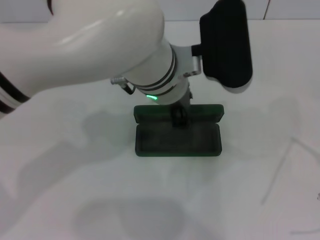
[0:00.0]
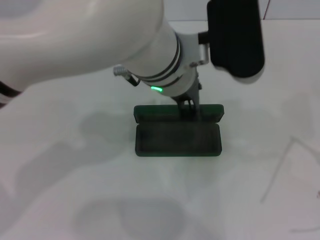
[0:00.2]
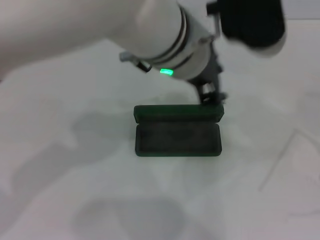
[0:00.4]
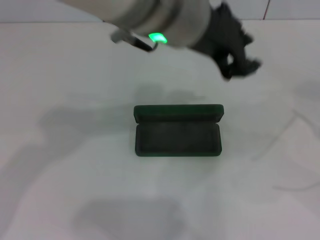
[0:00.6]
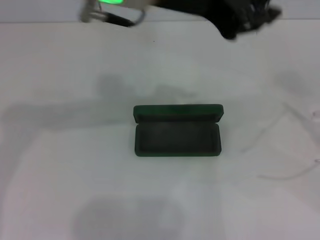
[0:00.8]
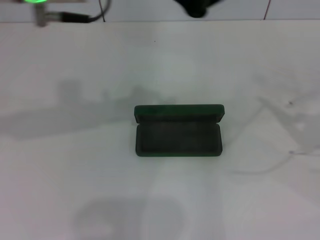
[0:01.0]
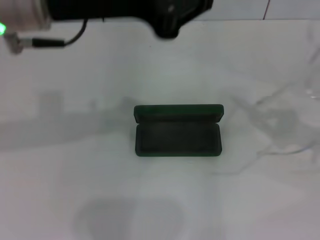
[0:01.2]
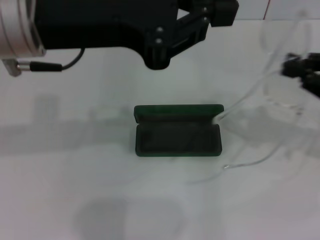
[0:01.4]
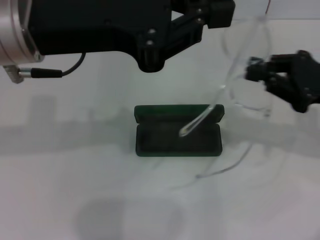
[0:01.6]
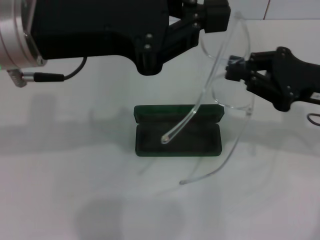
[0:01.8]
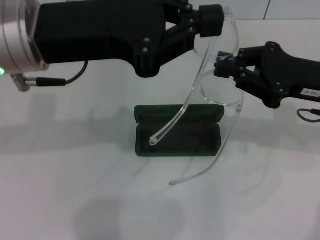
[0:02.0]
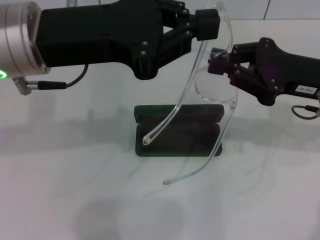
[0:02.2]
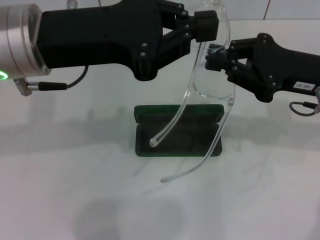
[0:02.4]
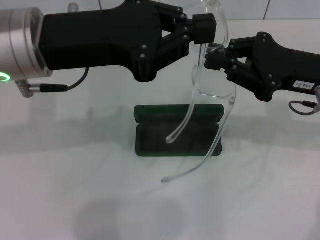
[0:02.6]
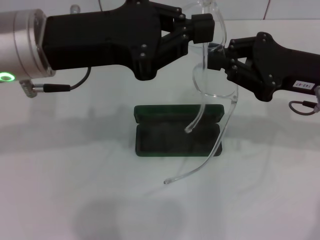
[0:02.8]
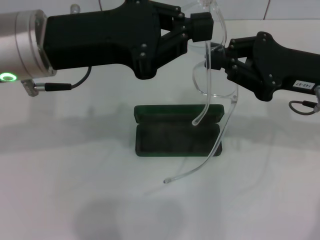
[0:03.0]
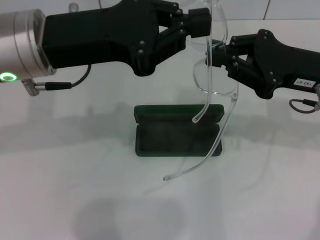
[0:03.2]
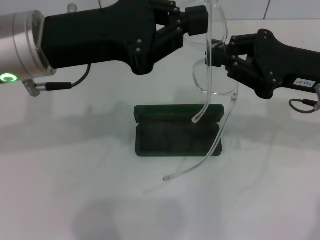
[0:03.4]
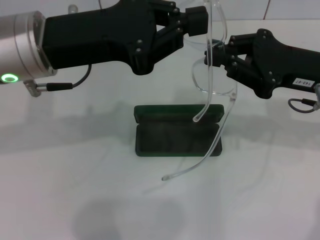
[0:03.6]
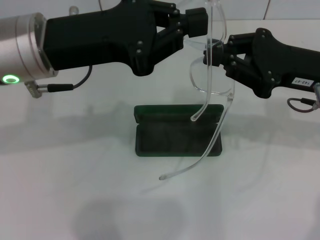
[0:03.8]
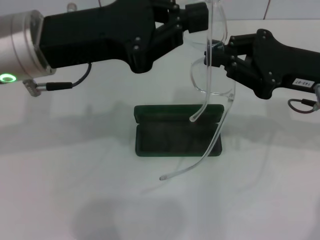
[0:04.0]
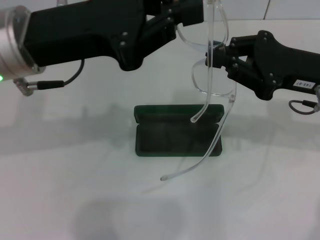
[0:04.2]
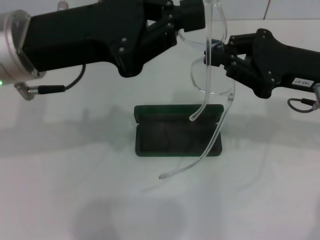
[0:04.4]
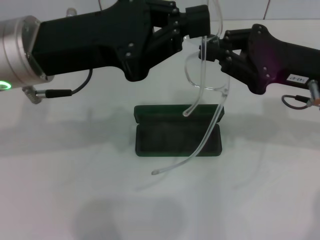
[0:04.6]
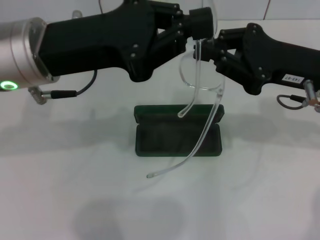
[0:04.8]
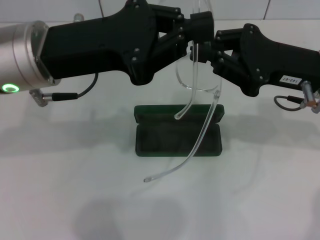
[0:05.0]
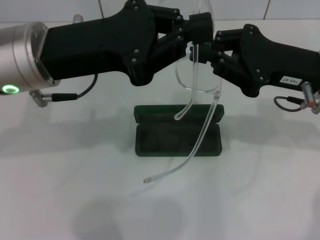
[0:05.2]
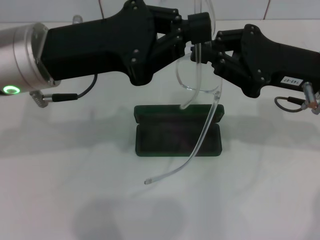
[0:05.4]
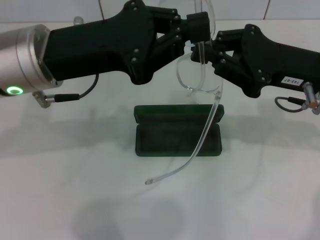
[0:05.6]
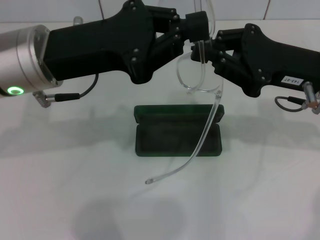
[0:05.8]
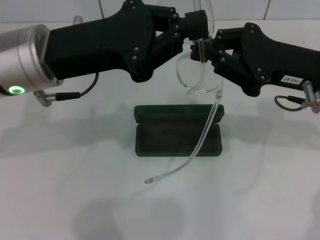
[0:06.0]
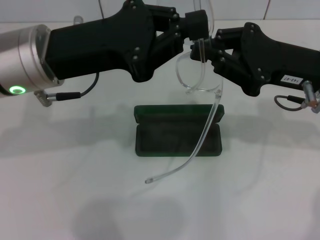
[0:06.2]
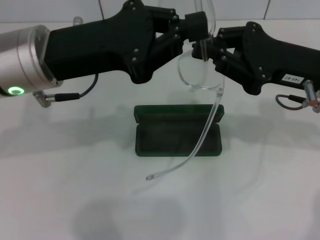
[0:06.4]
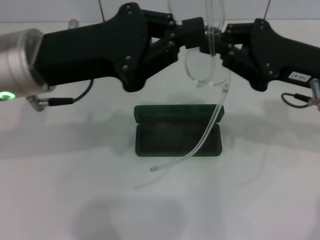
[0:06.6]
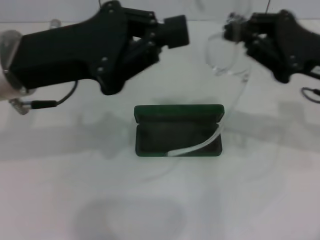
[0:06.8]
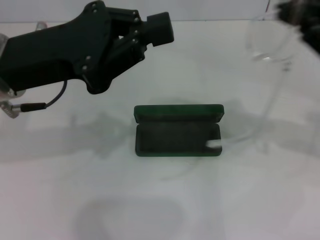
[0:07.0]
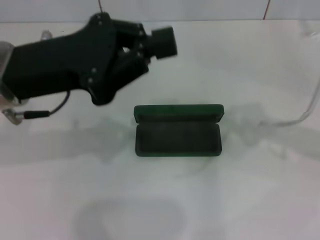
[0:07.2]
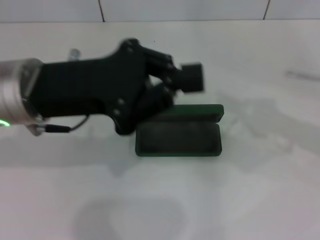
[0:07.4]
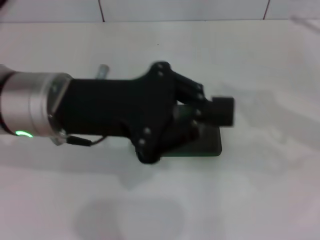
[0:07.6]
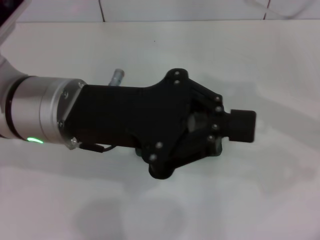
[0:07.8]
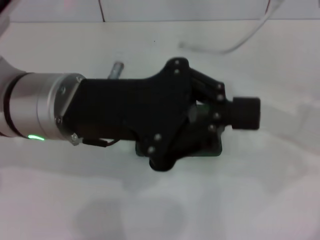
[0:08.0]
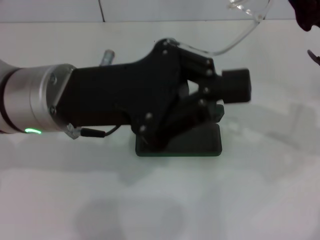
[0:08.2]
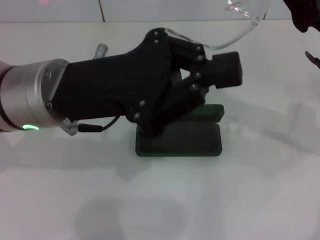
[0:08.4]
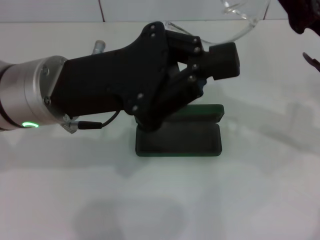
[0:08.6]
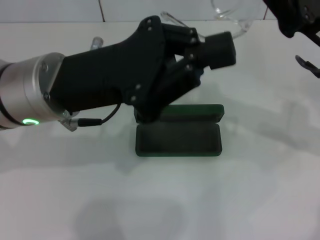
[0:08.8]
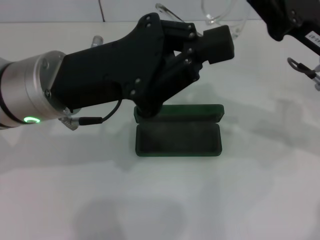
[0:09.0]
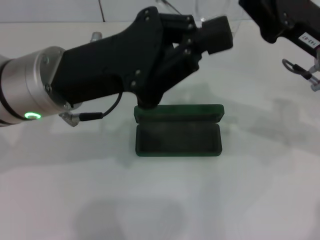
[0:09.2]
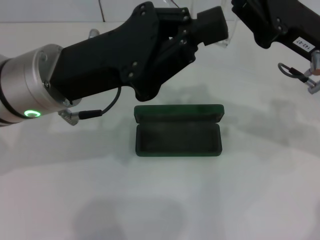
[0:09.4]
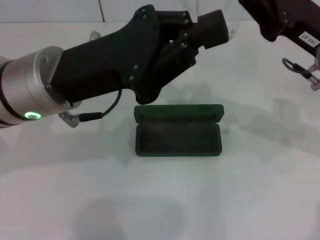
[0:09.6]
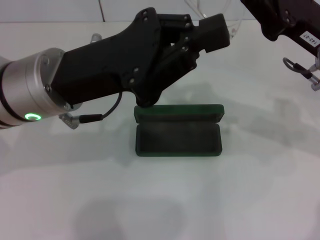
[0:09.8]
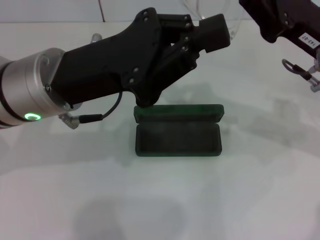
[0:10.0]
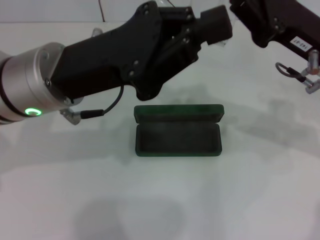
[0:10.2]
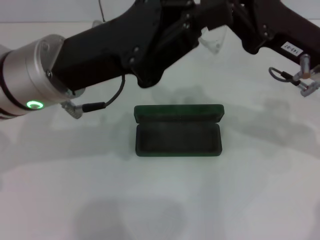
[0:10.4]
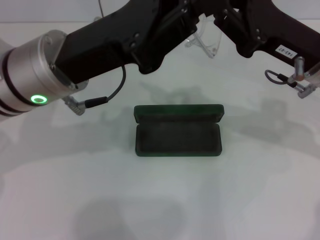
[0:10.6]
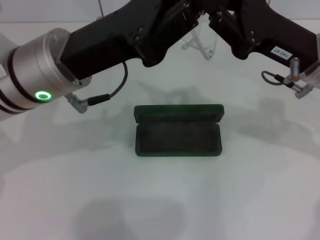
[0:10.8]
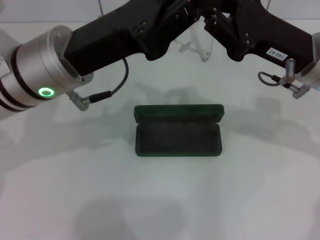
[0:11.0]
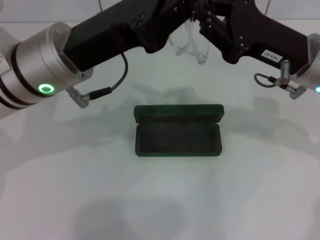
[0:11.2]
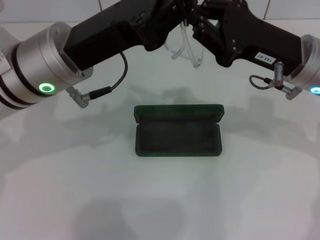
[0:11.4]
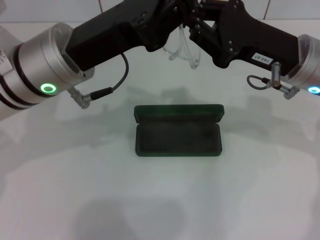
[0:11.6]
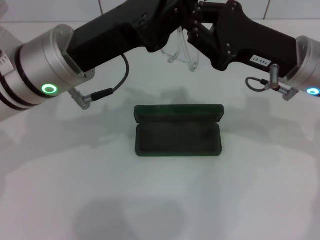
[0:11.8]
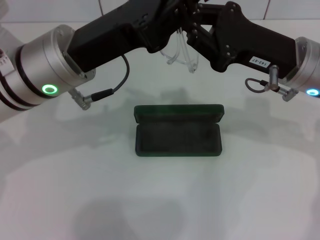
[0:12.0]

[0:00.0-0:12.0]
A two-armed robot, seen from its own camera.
0:00.0 to 0:01.6: The right gripper heads to the left and forward, covering roughly 20 cm. The left gripper travels to the left and upward by about 15 cm, and closes up.
0:01.6 to 0:03.0: The right gripper changes place by some 5 cm.
0:03.0 to 0:06.0: The grippers move only a little.
0:06.0 to 0:07.6: The right gripper shifts approximately 10 cm to the right.
0:07.6 to 0:09.0: The right gripper shifts approximately 10 cm to the left.

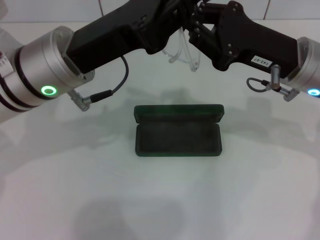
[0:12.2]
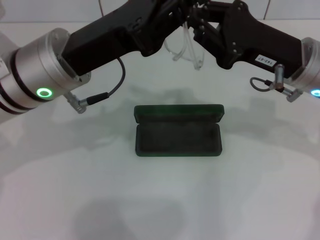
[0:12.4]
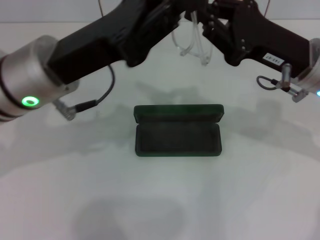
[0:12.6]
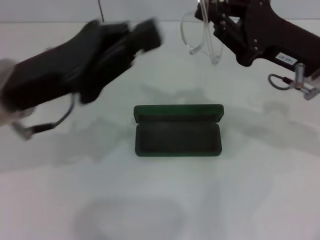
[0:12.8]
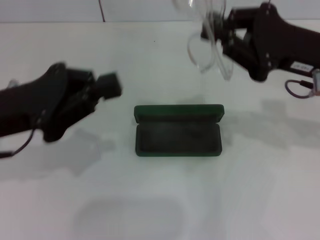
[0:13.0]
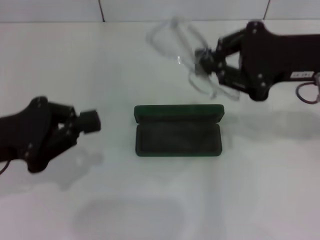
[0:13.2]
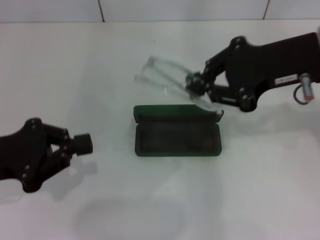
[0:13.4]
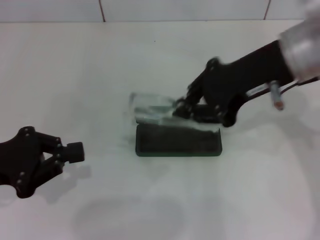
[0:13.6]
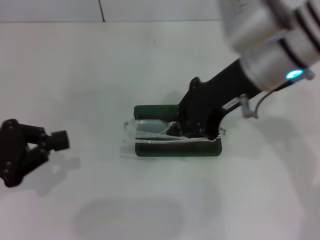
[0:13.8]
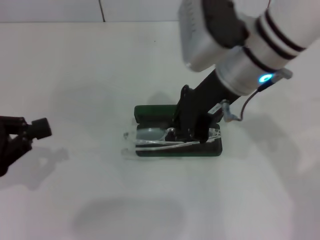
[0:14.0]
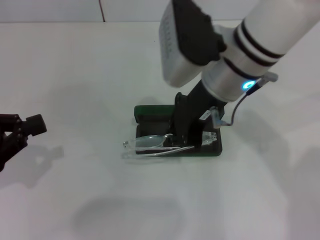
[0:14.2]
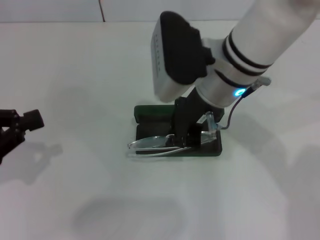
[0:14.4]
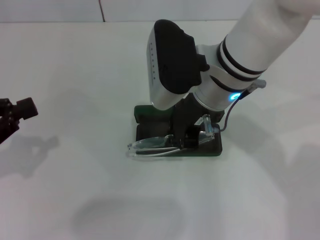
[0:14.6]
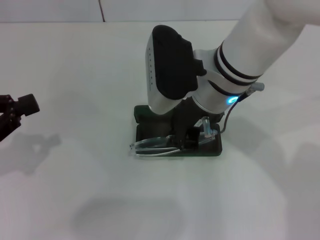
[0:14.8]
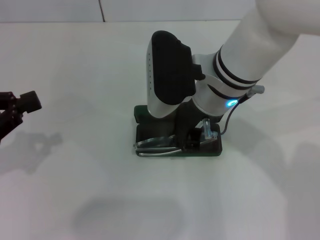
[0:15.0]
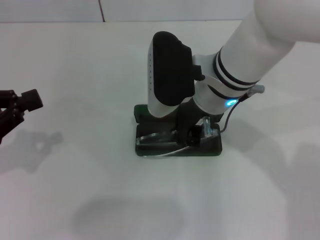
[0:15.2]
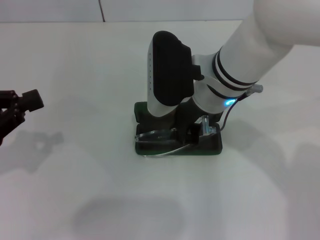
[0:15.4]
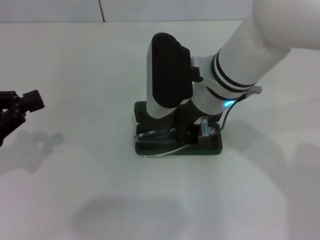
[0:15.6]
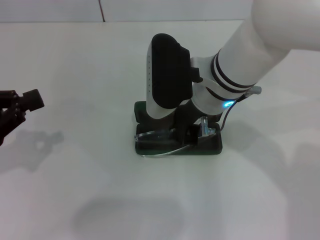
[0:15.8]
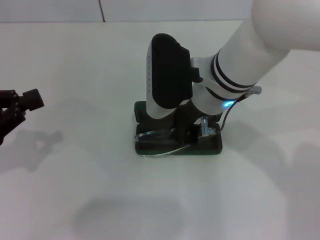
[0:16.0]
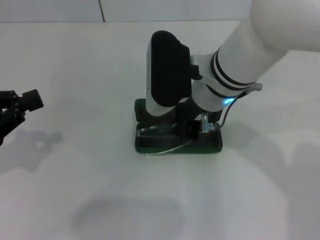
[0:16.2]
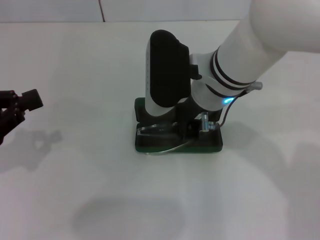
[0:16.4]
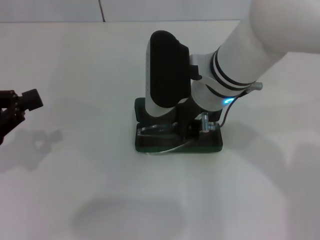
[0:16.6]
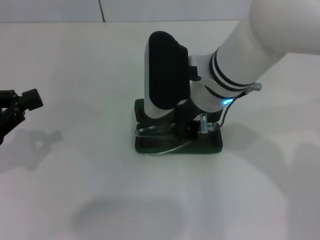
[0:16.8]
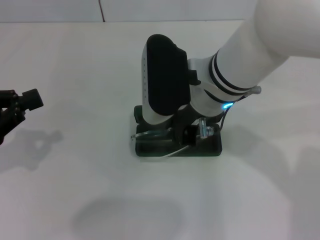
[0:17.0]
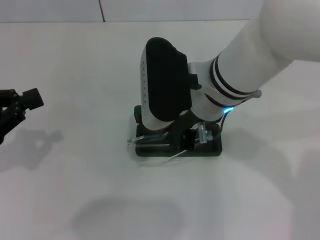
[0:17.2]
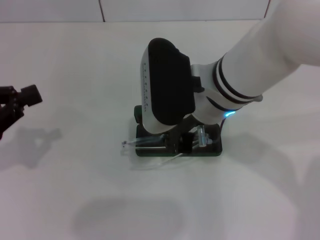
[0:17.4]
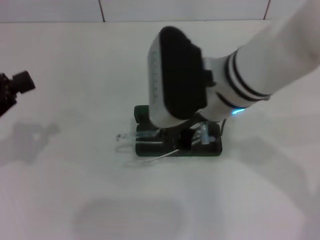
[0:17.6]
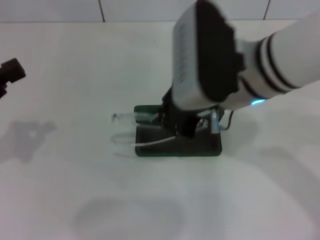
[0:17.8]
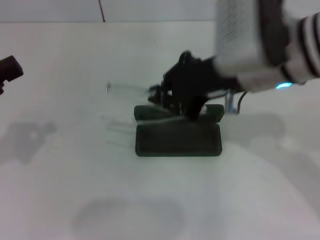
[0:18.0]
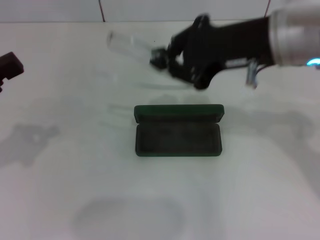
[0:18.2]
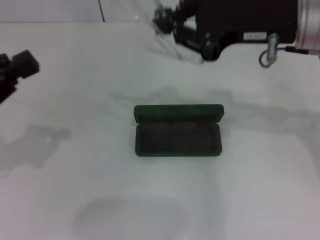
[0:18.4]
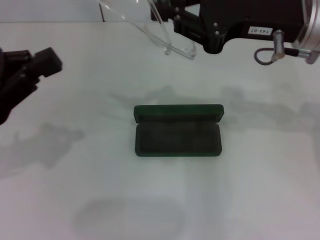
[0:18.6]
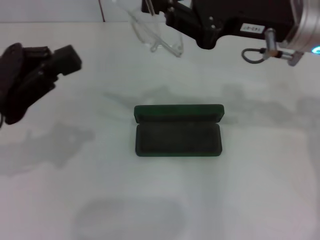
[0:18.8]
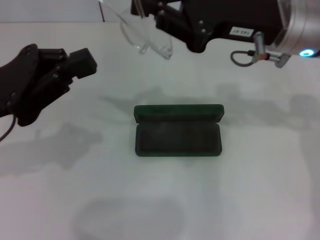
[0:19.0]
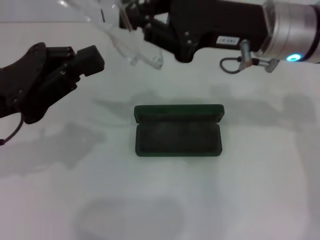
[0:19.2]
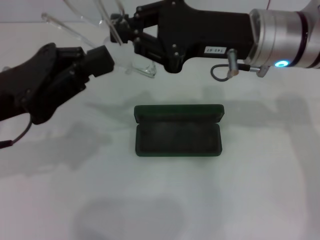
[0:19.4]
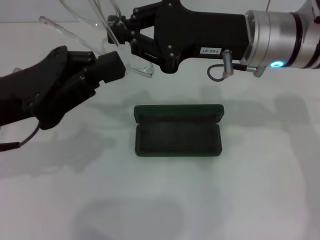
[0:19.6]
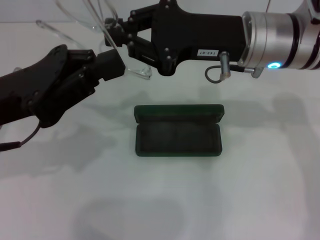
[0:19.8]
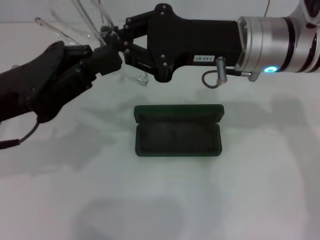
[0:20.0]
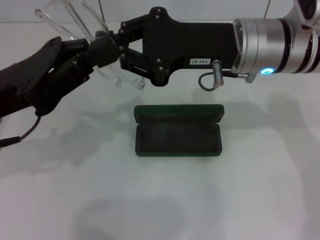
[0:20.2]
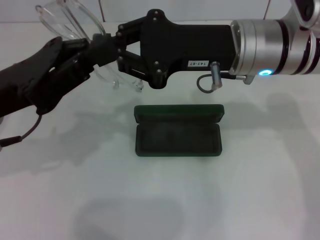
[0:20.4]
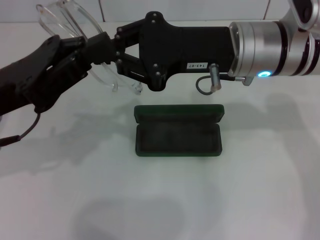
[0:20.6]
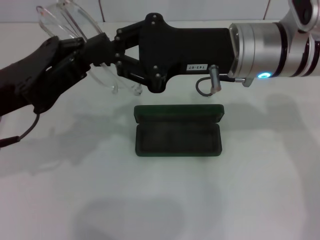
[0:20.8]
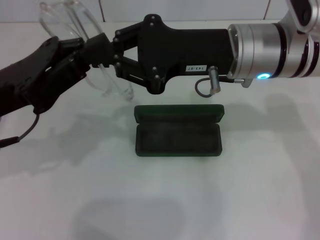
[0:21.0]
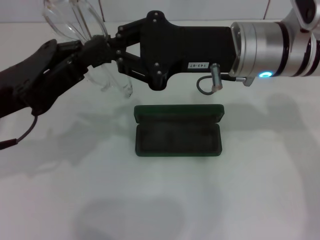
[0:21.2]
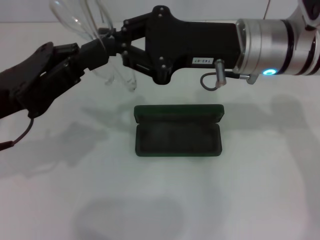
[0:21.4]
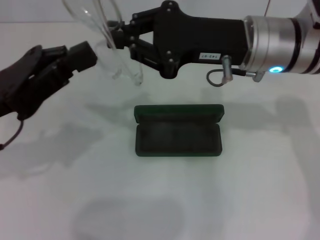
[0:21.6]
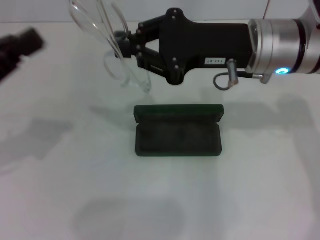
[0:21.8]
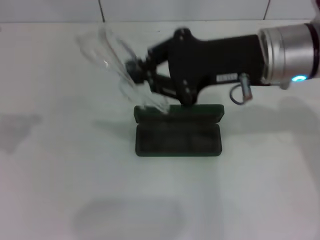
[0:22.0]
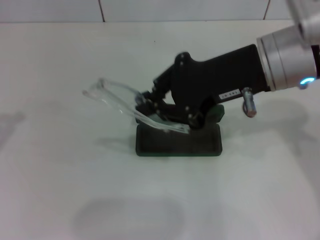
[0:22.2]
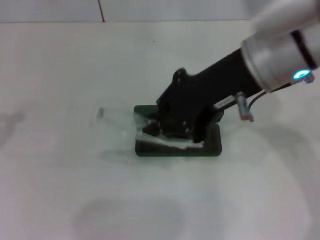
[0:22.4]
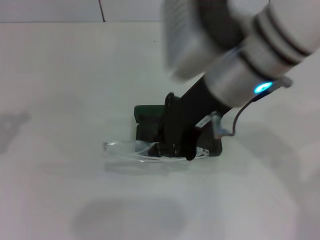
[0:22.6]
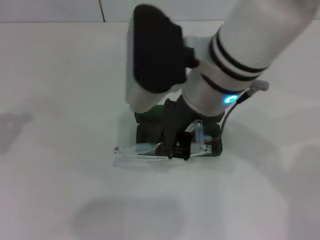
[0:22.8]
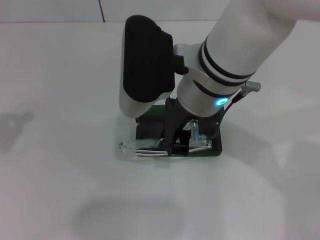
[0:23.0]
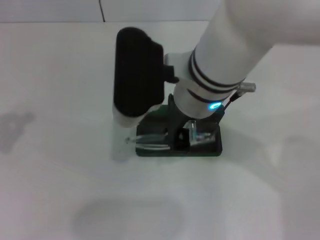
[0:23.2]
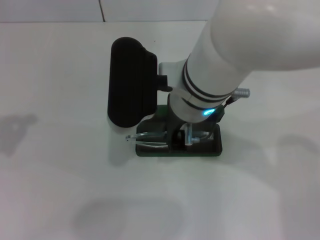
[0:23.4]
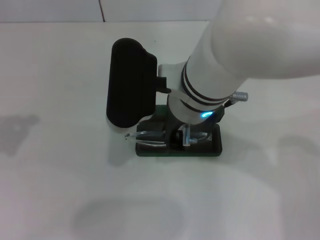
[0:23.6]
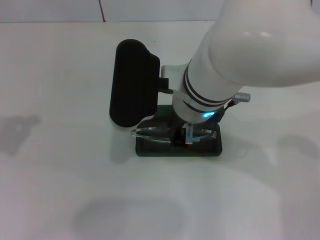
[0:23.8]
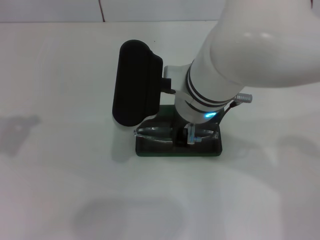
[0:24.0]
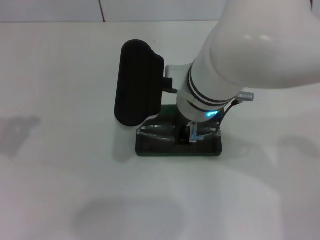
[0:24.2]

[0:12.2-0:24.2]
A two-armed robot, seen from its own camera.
Step, 0:12.2 to 0:21.0: Lift the glasses with your right hand.
0:12.2 to 0:13.8: The left gripper shifts some 20 cm to the left and backward. Meanwhile the right gripper is displaced upward and to the left by roughly 10 cm.
0:13.8 to 0:15.2: The right gripper is displaced to the left and downward by about 10 cm.
0:15.2 to 0:16.6: The two grippers keep their place.
0:16.6 to 0:18.2: The right gripper travels to the right and upward by some 15 cm.
0:18.2 to 0:19.8: The left gripper shifts some 10 cm to the right. The right gripper is displaced downward by some 5 cm.
0:19.8 to 0:21.2: There are only small adjustments of the grippers.
0:21.2 to 0:22.6: The right gripper travels upward by approximately 5 cm; the left gripper goes roughly 15 cm to the left.
0:22.6 to 0:24.2: The right gripper heads downward and to the left, covering roughly 10 cm.
